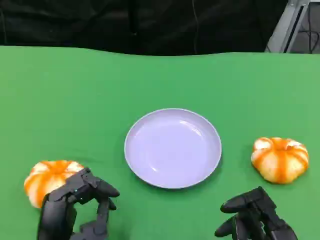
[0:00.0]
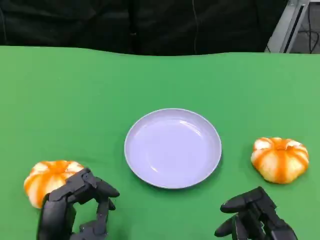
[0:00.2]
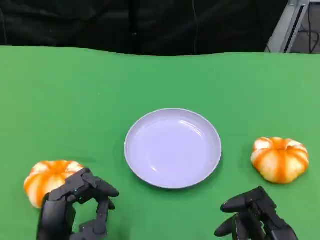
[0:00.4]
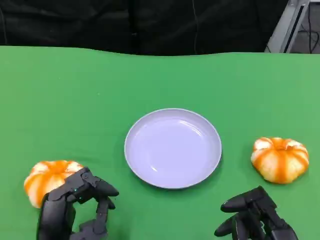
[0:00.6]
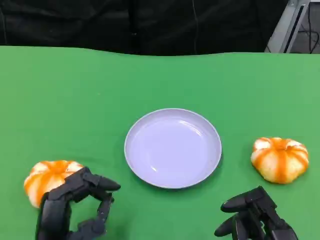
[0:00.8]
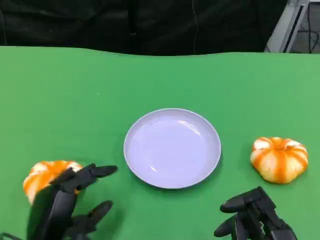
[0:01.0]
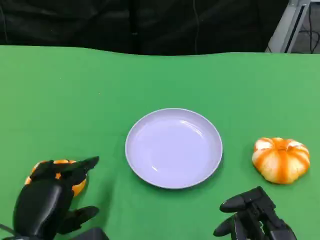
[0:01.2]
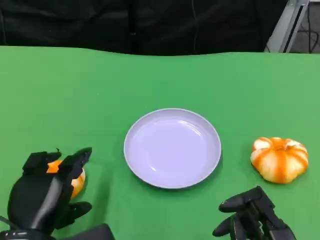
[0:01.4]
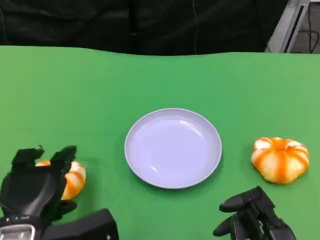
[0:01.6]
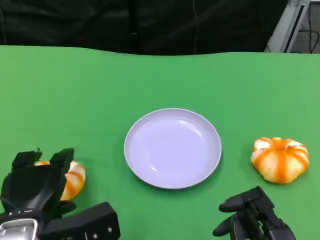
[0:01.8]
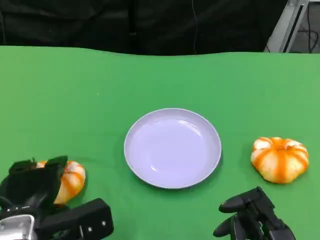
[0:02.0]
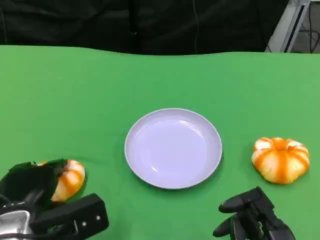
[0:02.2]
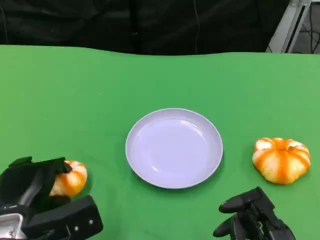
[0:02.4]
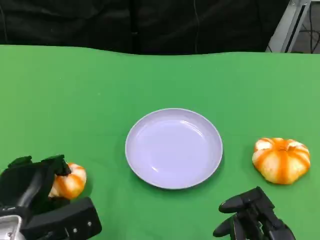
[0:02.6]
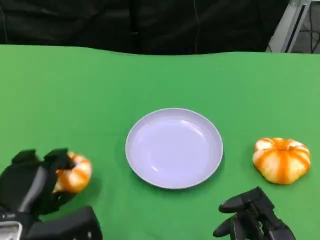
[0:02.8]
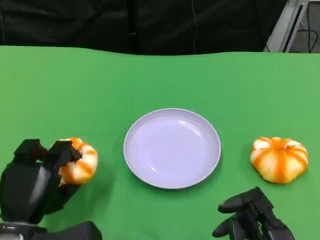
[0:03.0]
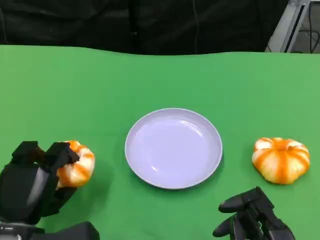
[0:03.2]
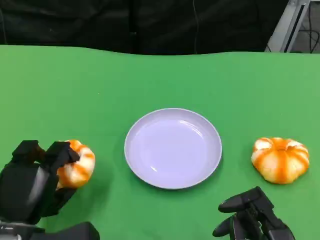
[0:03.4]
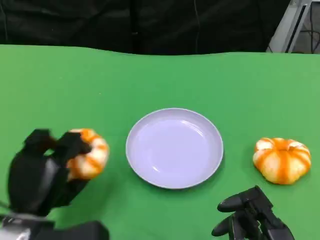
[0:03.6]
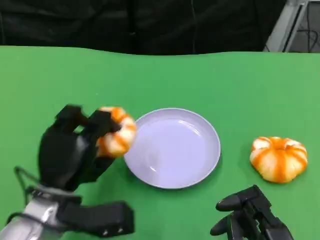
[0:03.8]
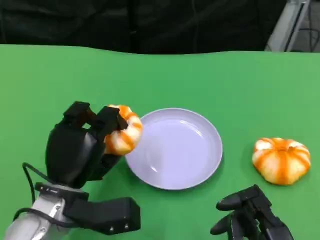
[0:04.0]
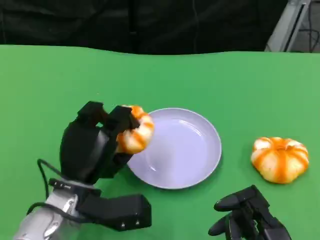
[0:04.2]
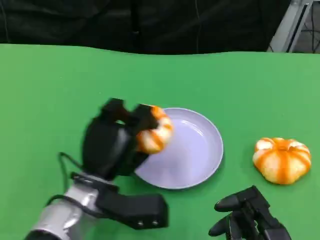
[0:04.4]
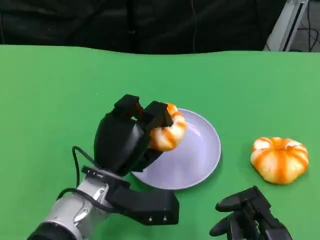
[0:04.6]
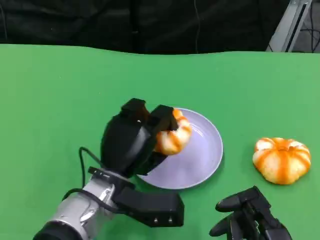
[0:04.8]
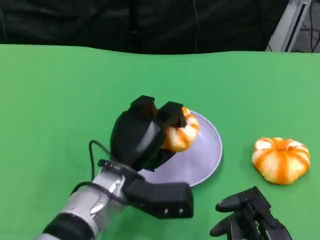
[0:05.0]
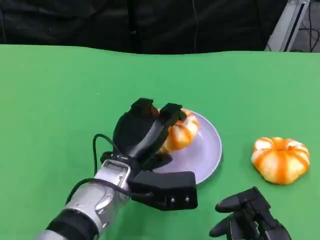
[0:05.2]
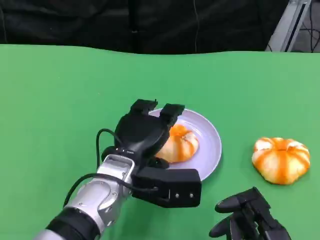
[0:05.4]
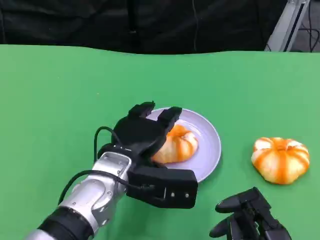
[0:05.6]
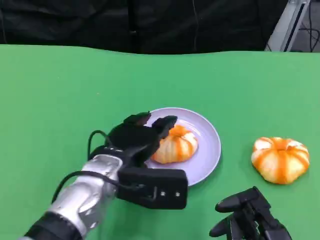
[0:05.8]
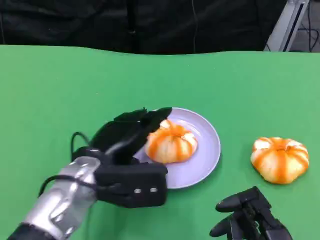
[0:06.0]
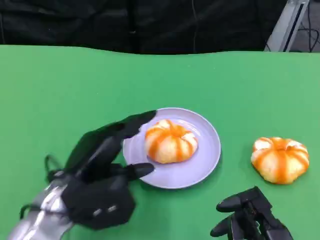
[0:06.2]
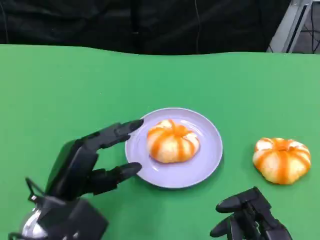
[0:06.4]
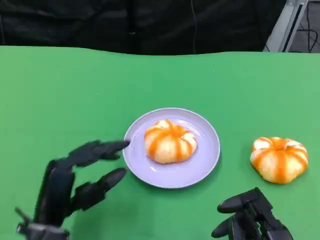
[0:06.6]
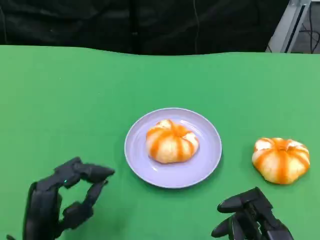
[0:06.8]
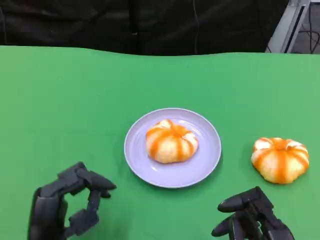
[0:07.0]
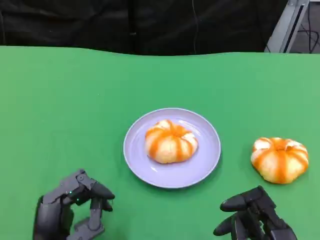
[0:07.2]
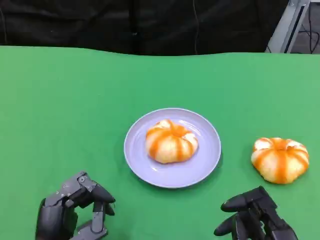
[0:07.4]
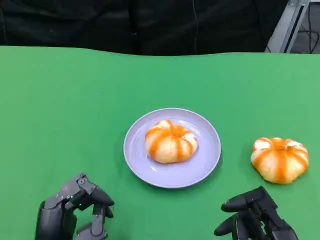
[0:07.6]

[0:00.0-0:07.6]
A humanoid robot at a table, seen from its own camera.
Task of the whole recording: Grasp the bread from the table and place it into the plate.
0:00.0 to 0:01.6: The left hand travels upward by about 5 cm.
0:03.0 to 0:04.6: The left hand is displaced to the right and forward by about 15 cm.
0:06.0 to 0:07.6: The left hand is displaced backward and downward by roughly 15 cm.

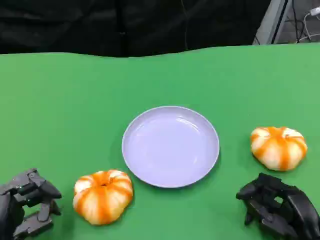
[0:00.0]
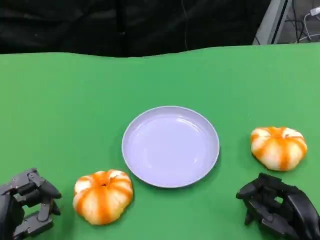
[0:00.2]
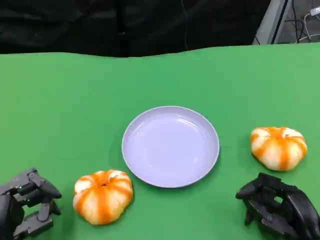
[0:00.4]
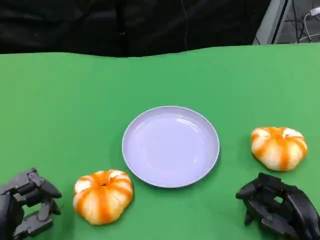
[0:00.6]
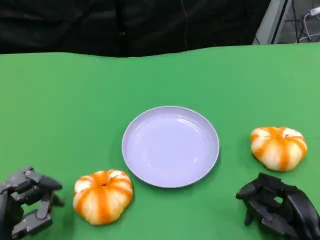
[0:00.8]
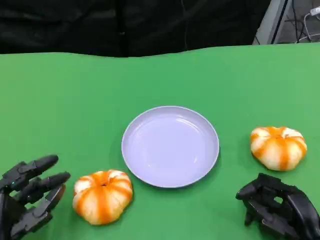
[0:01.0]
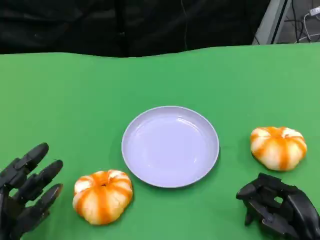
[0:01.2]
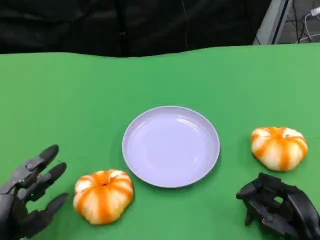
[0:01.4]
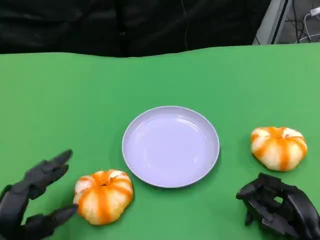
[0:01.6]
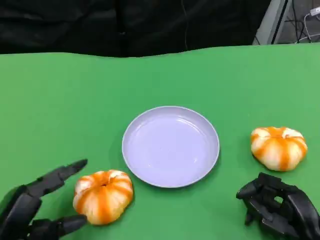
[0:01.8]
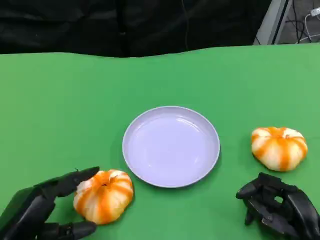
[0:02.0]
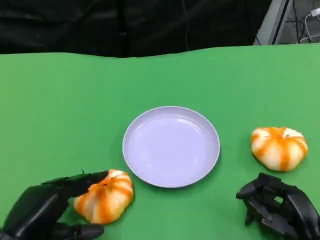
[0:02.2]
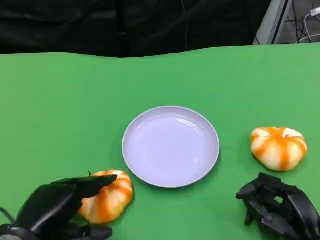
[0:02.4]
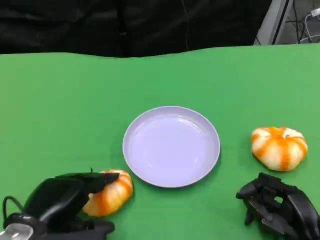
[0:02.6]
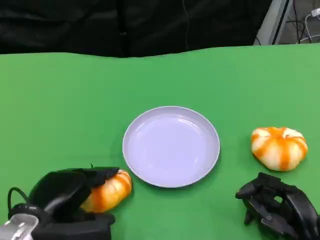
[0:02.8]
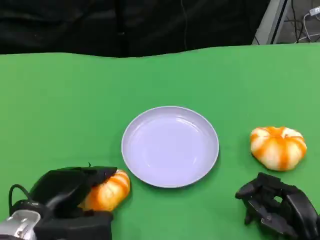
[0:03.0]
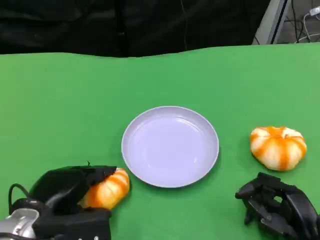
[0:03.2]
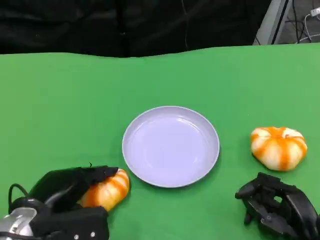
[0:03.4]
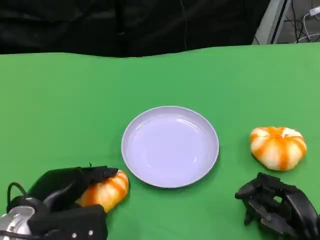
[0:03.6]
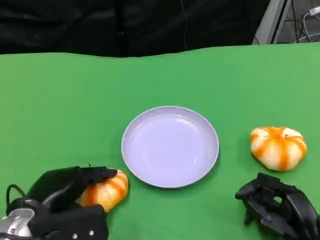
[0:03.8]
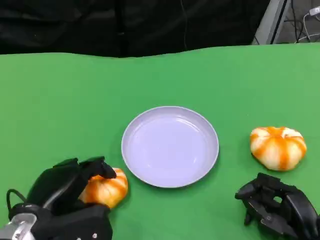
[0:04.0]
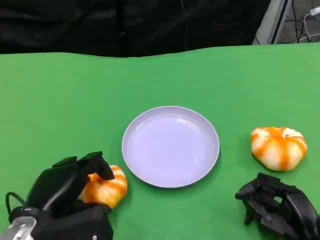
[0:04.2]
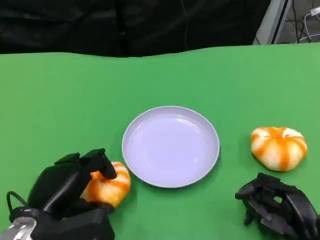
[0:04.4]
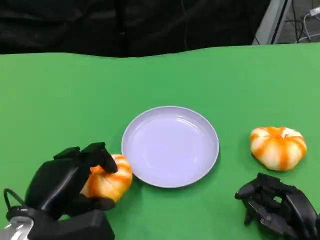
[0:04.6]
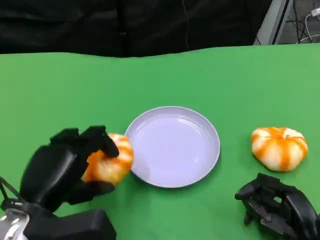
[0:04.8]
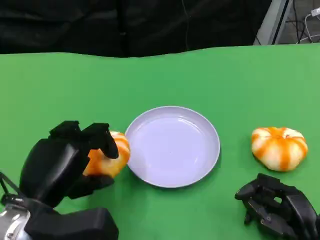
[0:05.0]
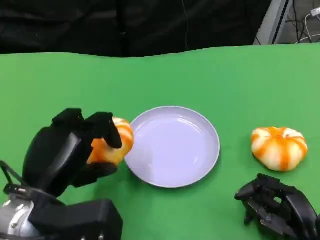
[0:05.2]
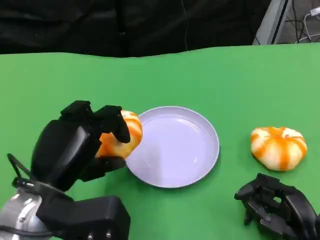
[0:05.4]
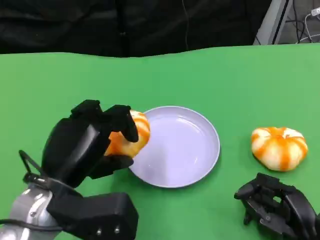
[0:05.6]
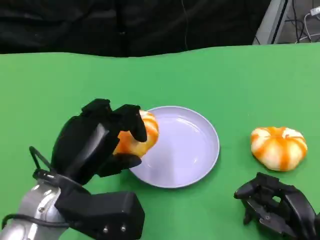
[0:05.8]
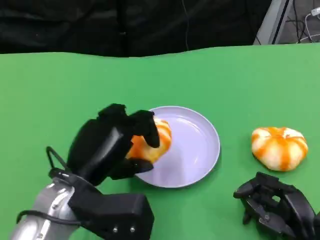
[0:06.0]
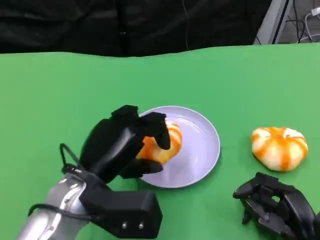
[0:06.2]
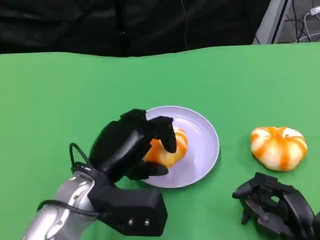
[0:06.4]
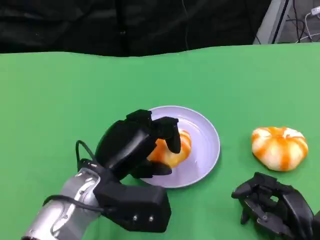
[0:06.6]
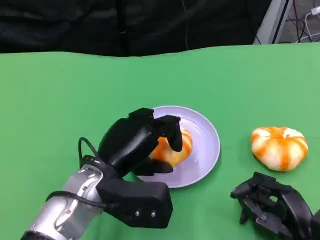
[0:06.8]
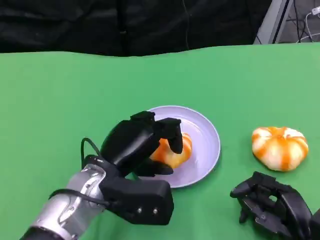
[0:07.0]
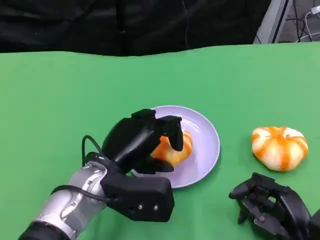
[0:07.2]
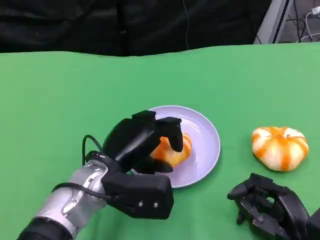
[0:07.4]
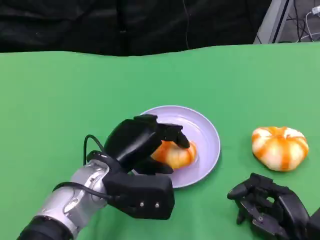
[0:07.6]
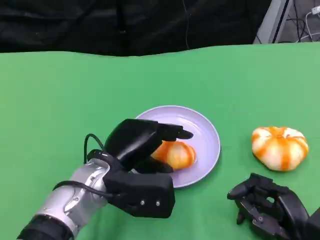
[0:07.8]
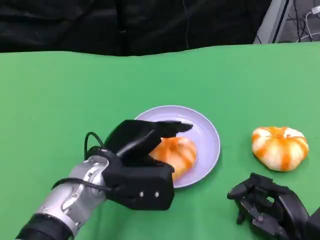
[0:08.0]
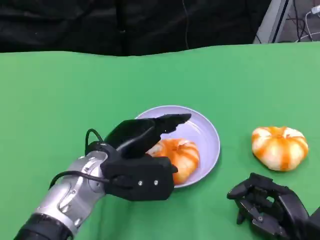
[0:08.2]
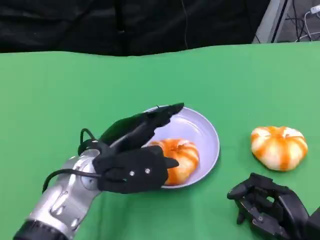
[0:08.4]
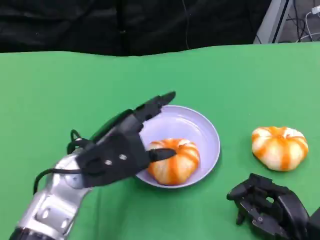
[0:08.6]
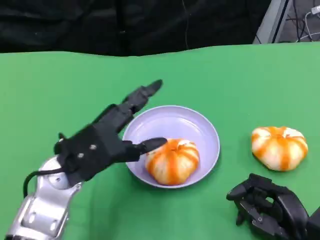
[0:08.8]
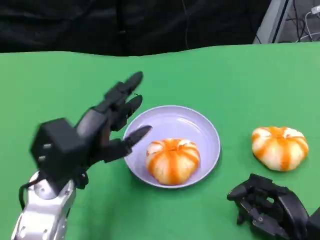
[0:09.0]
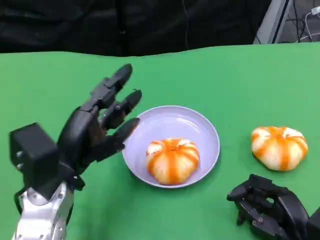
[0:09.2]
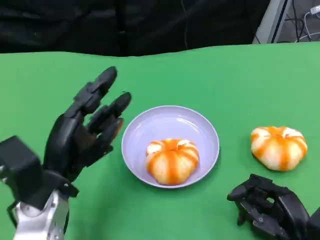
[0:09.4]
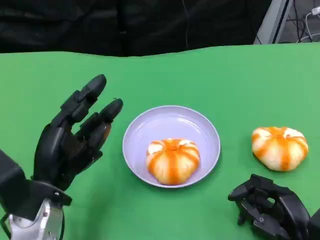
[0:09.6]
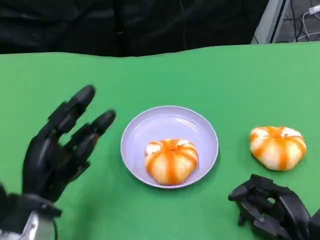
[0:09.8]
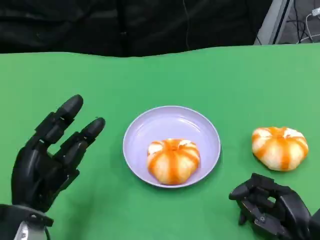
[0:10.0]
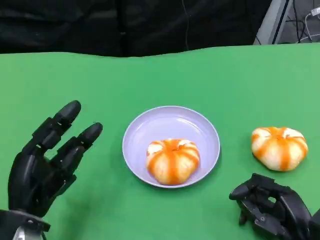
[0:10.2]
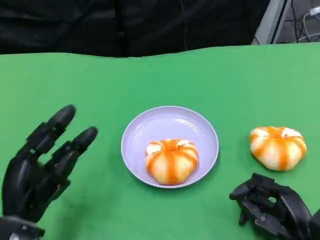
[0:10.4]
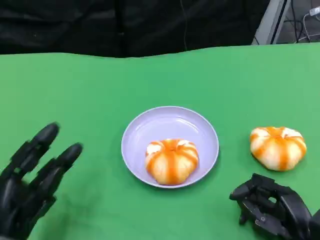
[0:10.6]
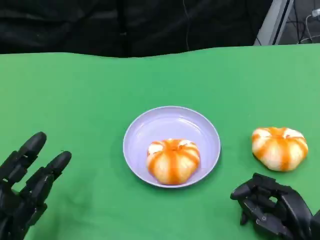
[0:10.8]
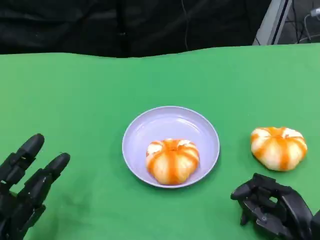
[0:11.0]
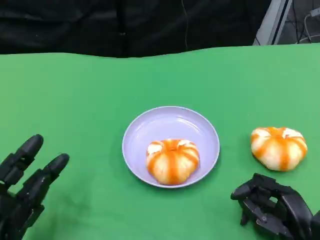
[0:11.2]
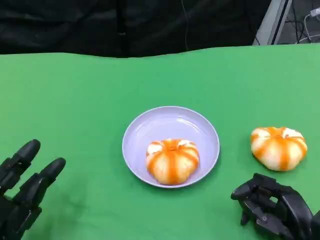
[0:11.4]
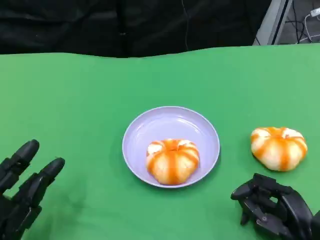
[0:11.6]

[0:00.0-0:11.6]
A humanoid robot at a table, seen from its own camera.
Task of the whole recording: Grasp the bread from the table and place it into the plate.
0:00.0 to 0:01.4: The hands stay close to where they were, moving slightly.
0:01.4 to 0:02.8: The left hand changes place by about 10 cm.
0:02.8 to 0:04.4: The hands make only small movements.
0:04.4 to 0:05.8: The left hand is displaced upward by roughly 5 cm.
0:05.8 to 0:07.2: The left hand goes approximately 5 cm to the right.
0:07.2 to 0:08.8: The left hand shifts by some 5 cm.
0:08.8 to 0:10.2: The left hand moves downward, to the left and backward, some 10 cm.
0:10.2 to 0:11.6: The left hand changes place by approximately 5 cm.

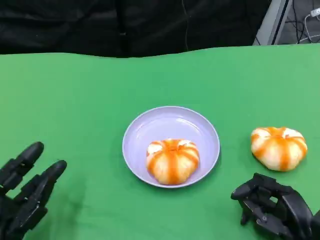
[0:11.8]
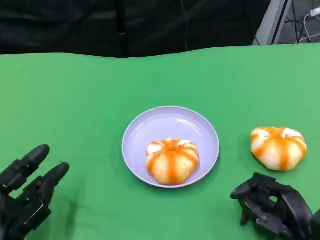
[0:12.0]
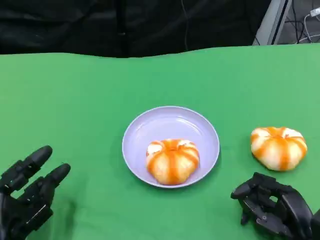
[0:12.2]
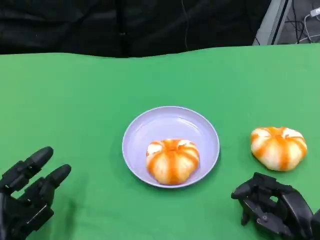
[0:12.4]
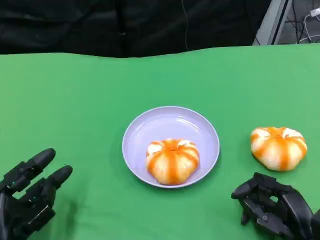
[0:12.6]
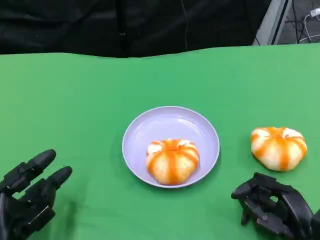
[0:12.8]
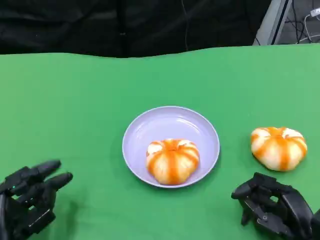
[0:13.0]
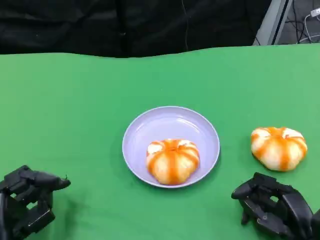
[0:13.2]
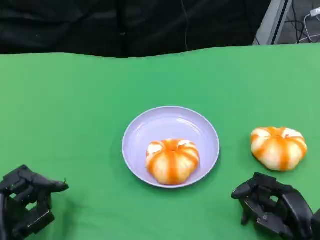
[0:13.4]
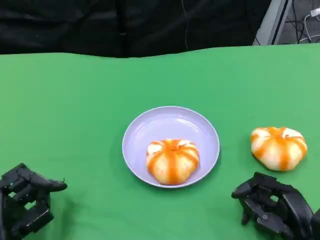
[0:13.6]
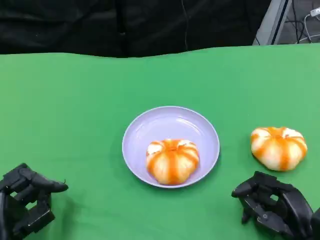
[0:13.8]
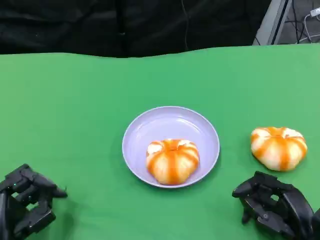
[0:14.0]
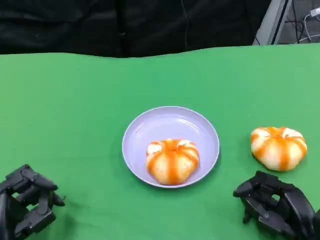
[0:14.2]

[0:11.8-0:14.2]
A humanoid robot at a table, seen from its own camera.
Task of the whole recording: Grasp the bread from the table and place it into the plate.
0:11.8 to 0:13.0: The hands move only a little.
0:13.0 to 0:14.2: Both hands stay put.
